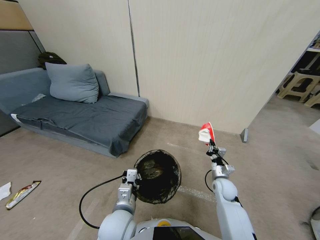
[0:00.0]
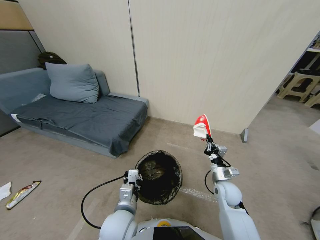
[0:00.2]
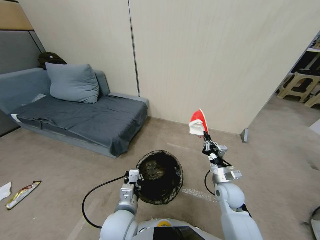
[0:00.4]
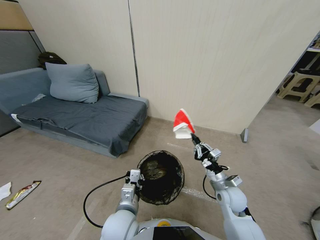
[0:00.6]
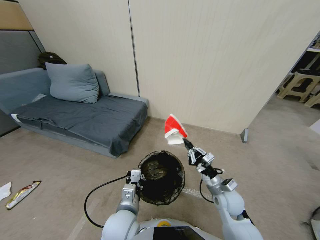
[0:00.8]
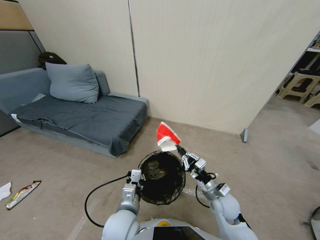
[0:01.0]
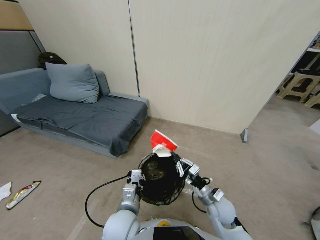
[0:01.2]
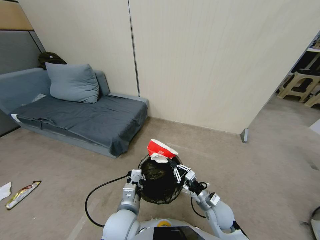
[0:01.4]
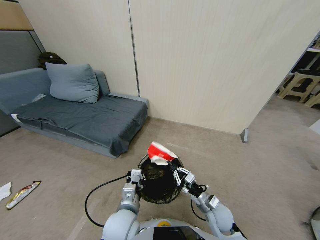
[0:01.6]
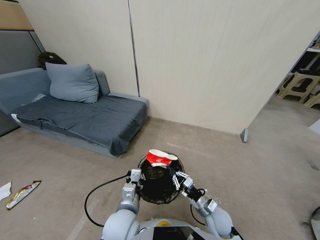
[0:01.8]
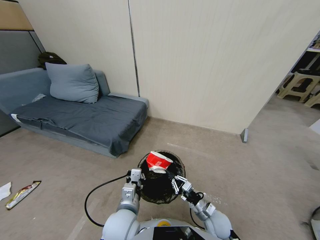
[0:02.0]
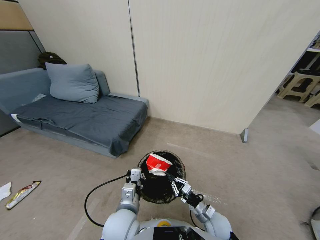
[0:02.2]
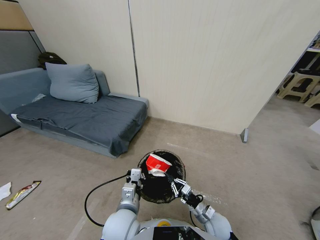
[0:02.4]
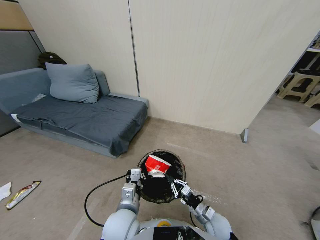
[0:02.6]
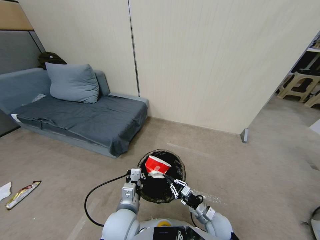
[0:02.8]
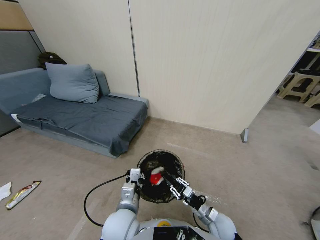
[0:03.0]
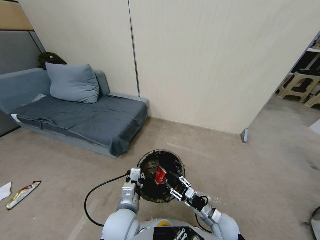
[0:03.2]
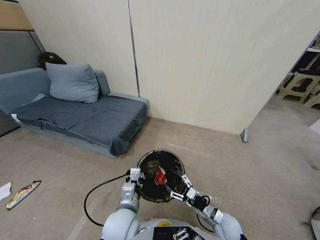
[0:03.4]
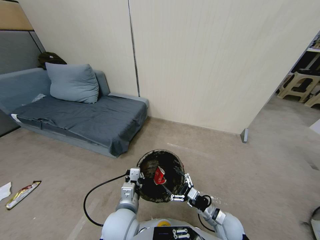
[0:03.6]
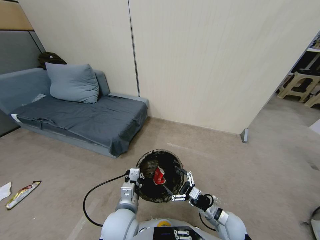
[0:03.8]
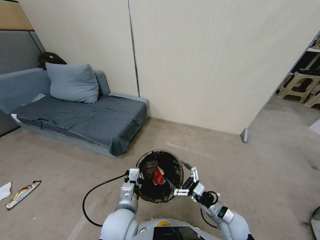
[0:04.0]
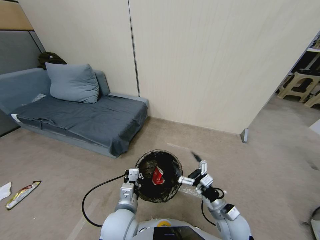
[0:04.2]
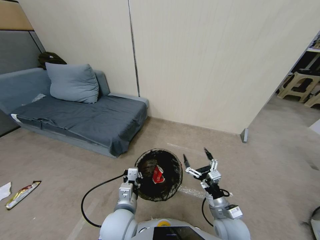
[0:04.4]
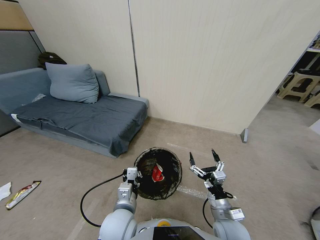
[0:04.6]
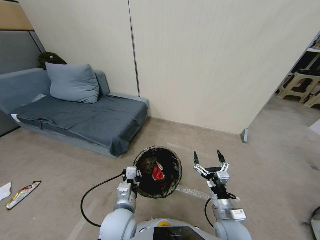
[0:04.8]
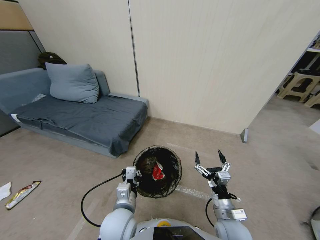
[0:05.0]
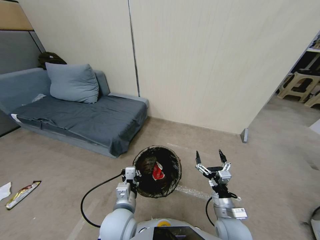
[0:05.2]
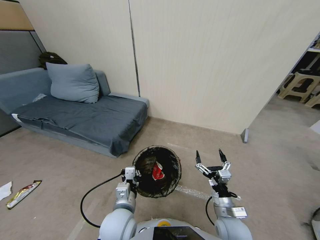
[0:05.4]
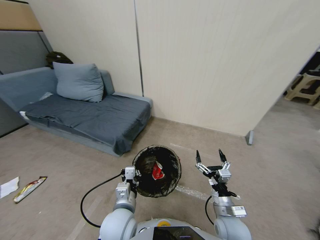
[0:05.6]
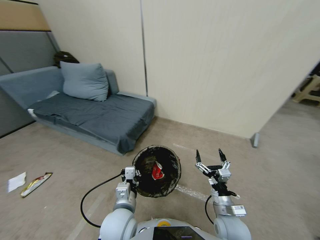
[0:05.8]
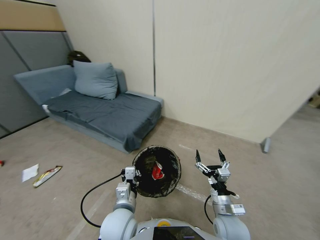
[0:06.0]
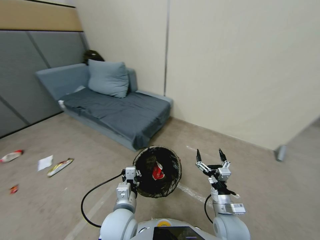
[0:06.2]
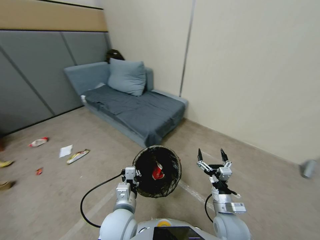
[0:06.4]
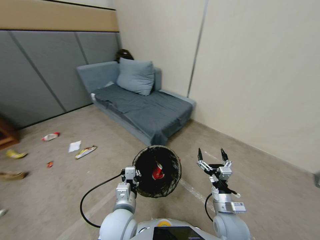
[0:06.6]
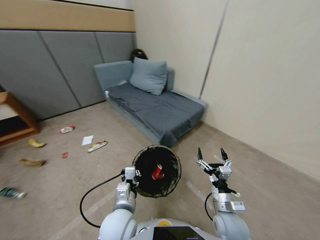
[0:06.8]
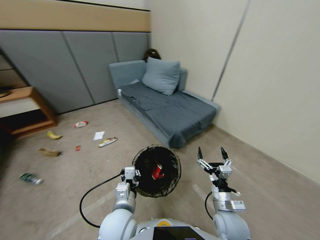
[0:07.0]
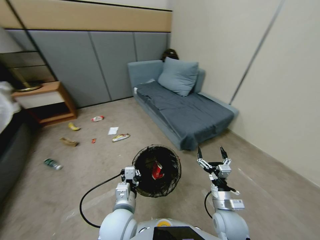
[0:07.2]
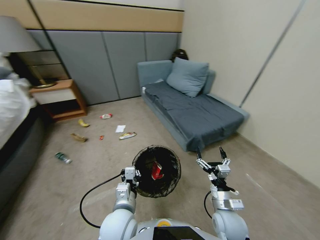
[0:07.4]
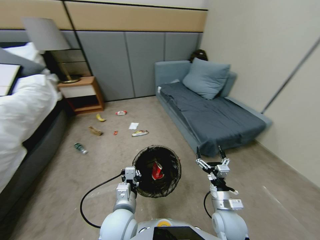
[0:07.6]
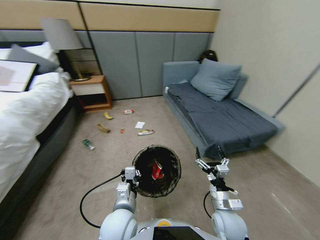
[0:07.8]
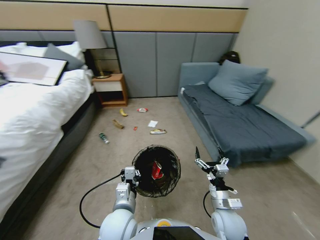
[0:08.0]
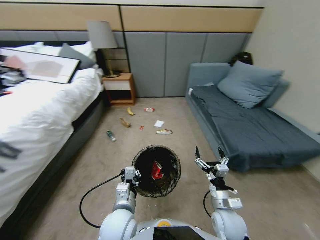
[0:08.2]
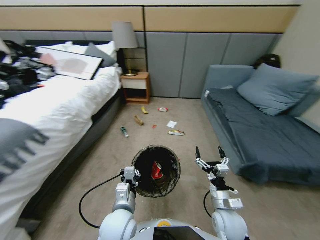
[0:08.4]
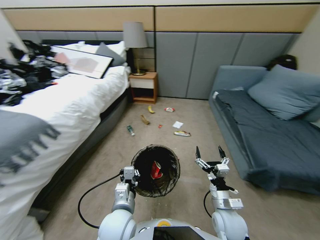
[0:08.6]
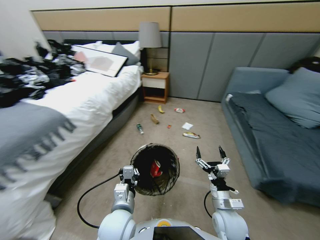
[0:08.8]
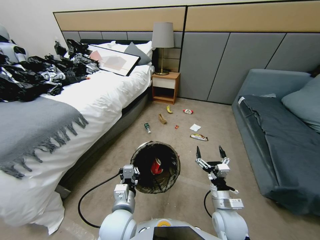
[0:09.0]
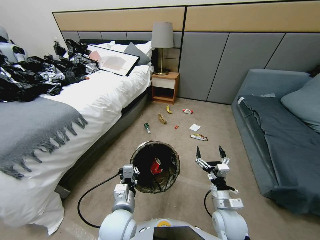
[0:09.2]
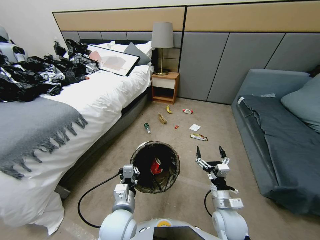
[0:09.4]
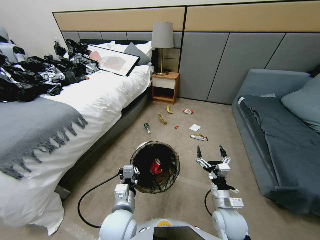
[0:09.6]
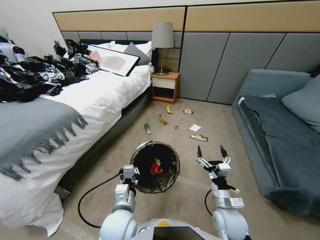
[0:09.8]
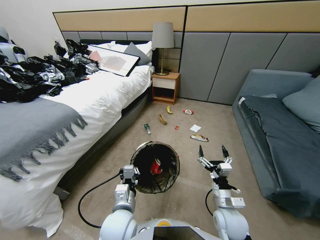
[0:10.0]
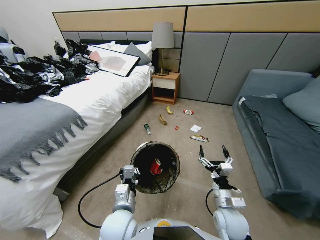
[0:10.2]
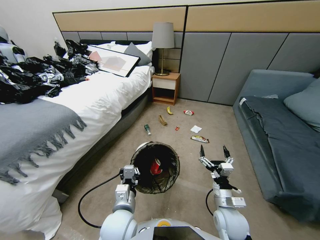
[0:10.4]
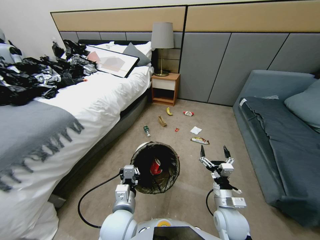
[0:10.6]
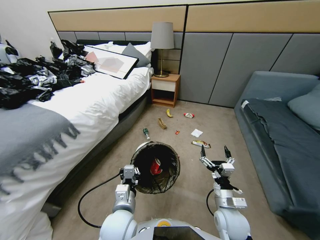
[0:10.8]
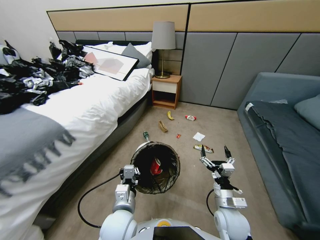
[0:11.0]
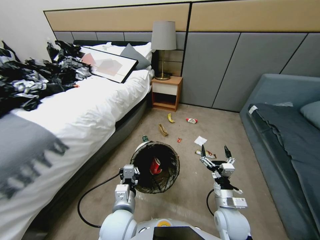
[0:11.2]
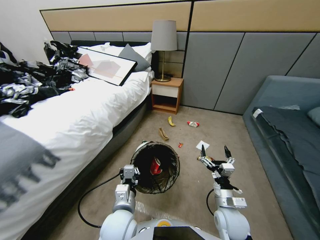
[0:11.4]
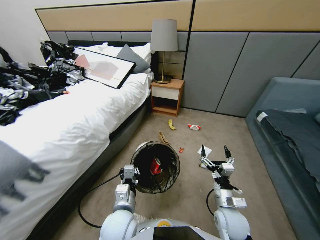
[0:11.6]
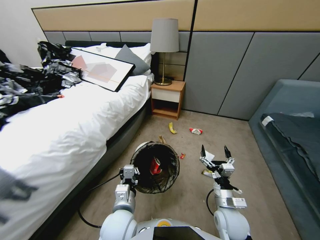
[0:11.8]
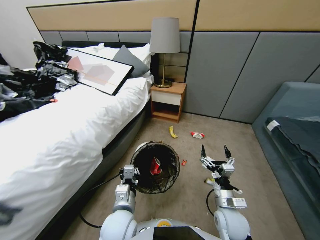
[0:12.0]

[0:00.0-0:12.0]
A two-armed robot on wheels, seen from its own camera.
Task of the whole recording: Pick up the trash bin, then pick up the garbage from the floor and place it into the trash bin.
0:00.0 to 0:01.6: The right gripper travels backward and to the left by about 10 cm.
0:01.6 to 0:03.0: The right gripper opens.
0:03.0 to 0:04.4: The right gripper goes approximately 10 cm upward, and opens.
0:09.0 to 0:10.4: Both grippers stay put.

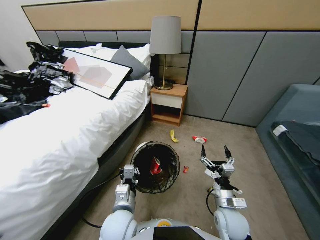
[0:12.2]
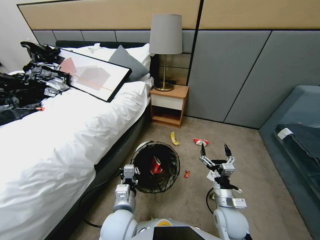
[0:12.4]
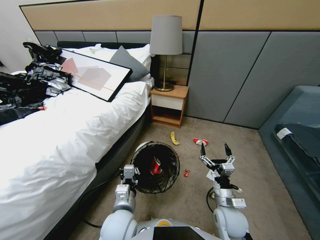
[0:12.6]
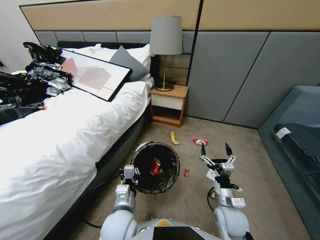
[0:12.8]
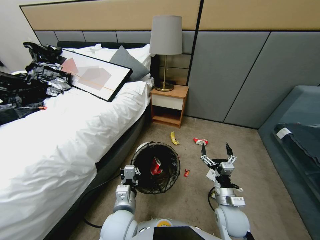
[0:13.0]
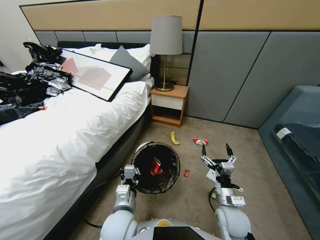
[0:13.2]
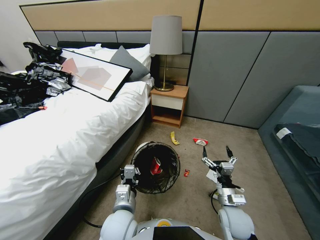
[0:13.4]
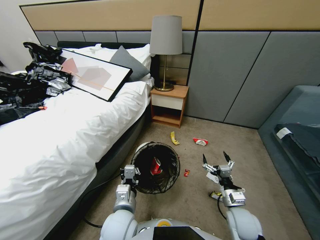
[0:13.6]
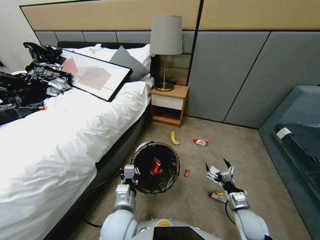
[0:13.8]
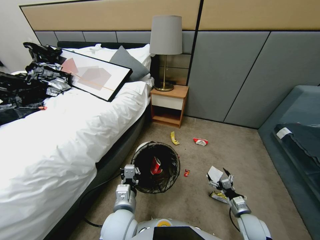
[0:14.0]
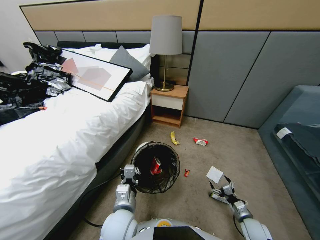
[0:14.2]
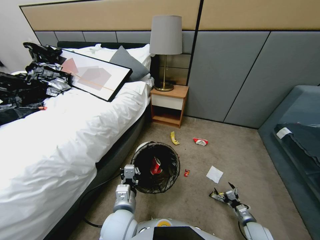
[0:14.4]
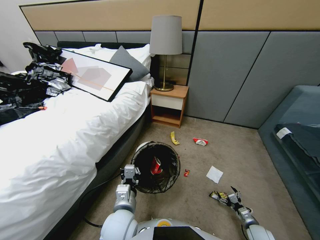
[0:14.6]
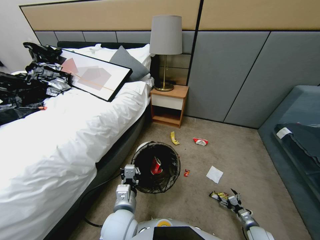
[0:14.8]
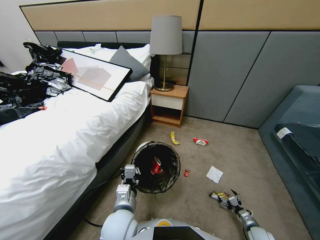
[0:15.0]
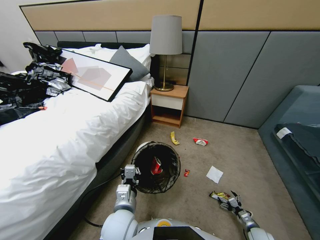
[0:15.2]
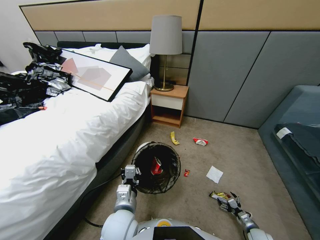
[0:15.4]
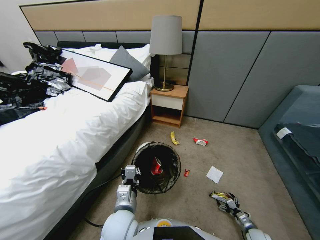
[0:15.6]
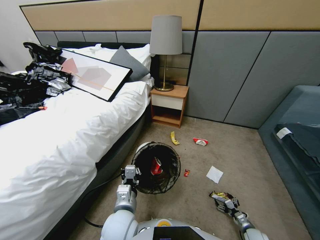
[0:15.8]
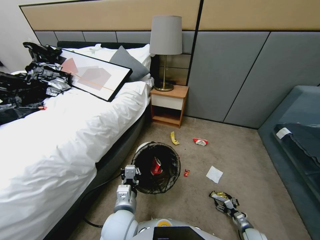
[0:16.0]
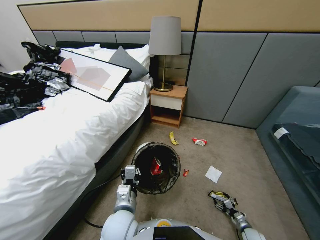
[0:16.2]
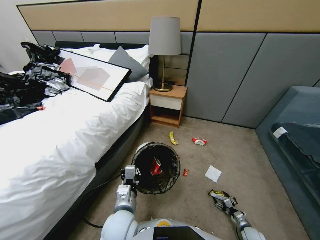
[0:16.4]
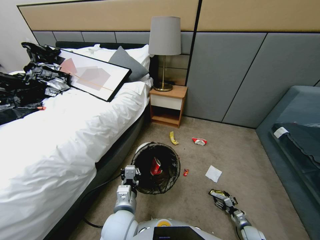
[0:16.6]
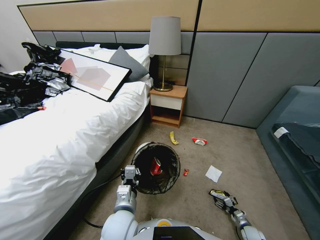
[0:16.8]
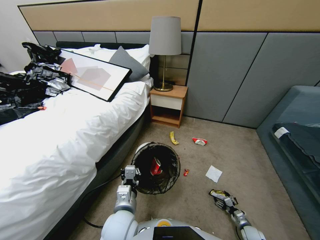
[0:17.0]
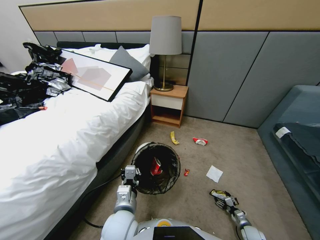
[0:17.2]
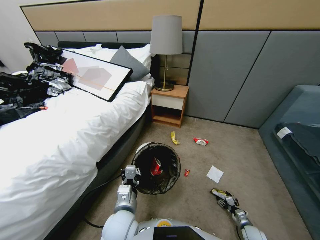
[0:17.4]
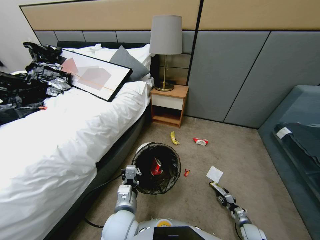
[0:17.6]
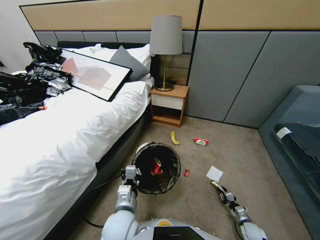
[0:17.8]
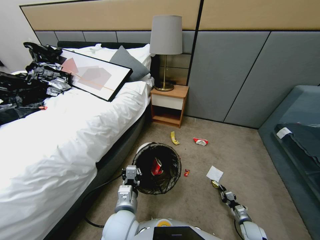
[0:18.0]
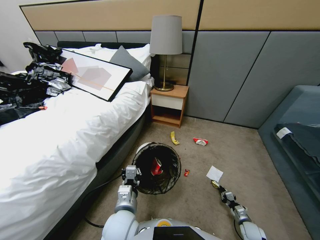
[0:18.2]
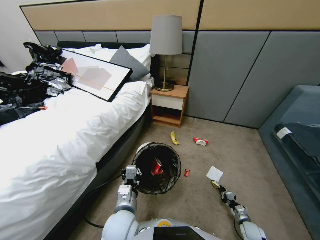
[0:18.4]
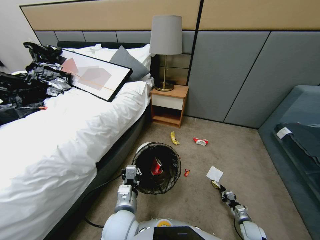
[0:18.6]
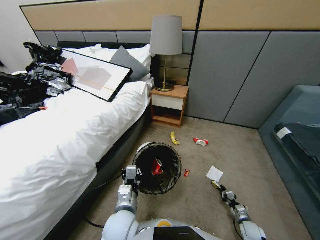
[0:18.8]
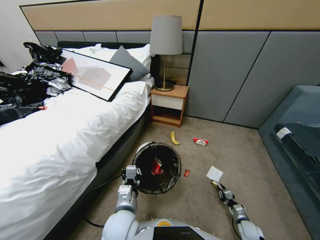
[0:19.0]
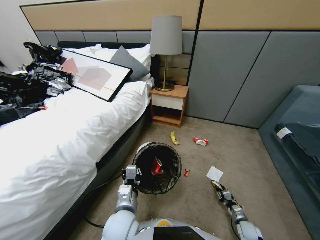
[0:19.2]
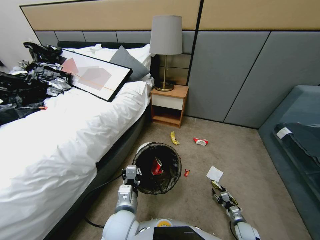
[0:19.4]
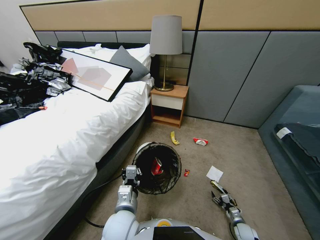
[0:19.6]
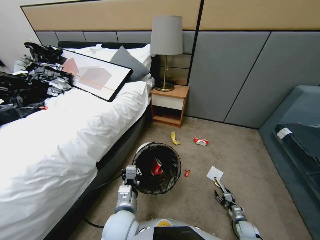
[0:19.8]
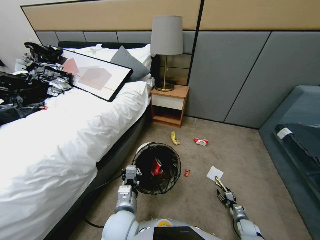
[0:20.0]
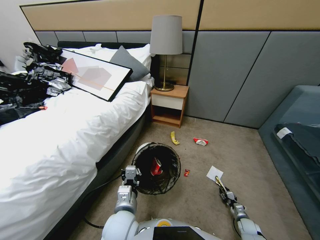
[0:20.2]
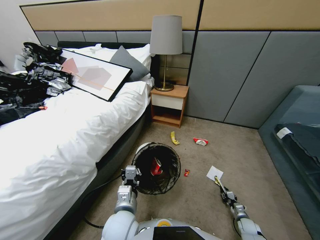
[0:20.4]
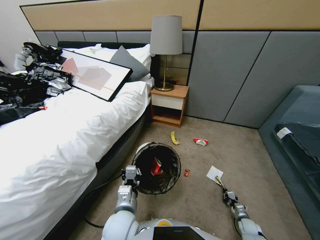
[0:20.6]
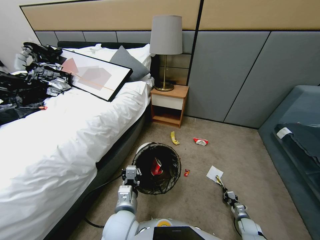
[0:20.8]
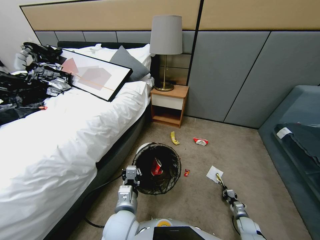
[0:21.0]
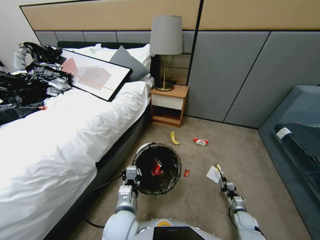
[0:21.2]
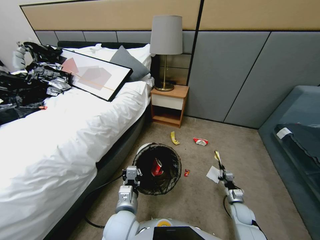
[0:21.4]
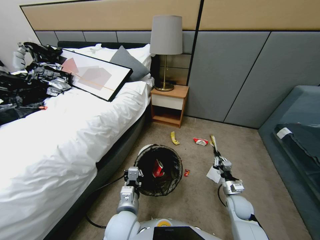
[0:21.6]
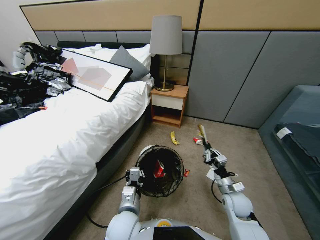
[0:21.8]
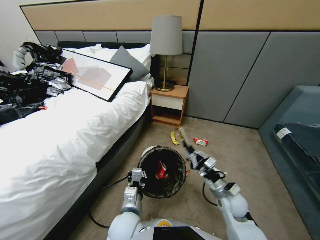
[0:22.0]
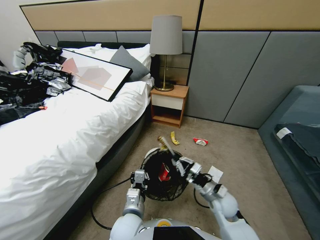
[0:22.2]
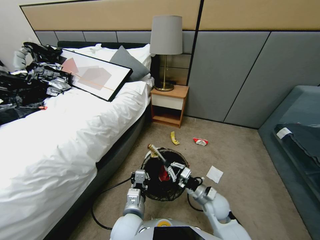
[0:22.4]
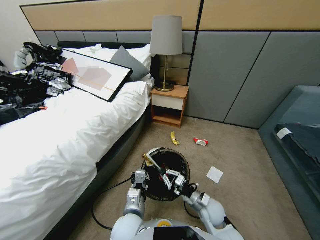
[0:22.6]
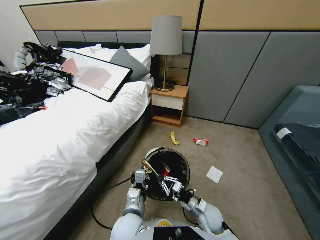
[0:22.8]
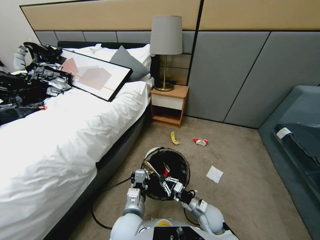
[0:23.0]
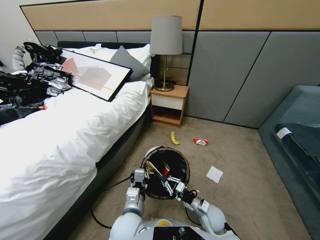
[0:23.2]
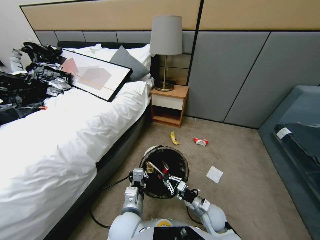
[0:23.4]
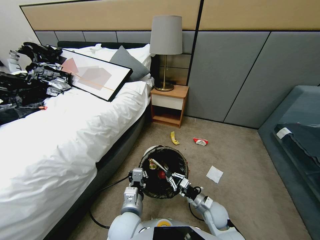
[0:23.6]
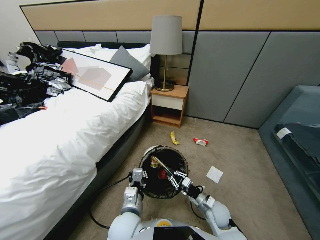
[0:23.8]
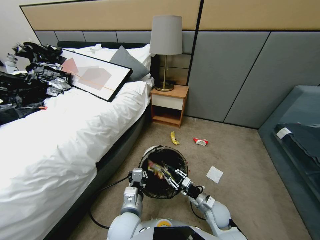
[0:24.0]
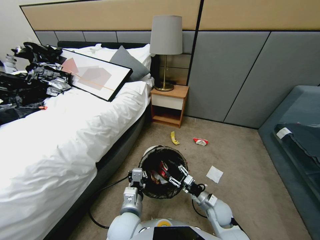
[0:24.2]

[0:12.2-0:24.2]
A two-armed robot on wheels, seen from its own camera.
Task of the whole recording: Pick up the trash bin, then pick up the garbage from the floor and place it into the trash bin.
0:12.2 to 0:13.8: The right gripper heads to the right and downward, covering about 15 cm.
0:13.8 to 0:15.2: The right gripper is displaced downward and to the right by approximately 20 cm.
0:15.2 to 0:16.6: The right gripper goes roughly 5 cm downward.
0:16.6 to 0:18.2: The right gripper changes place by roughly 5 cm, and closes up.
0:18.2 to 0:19.8: The right gripper opens its fingers.
0:19.8 to 0:21.2: The right gripper shifts some 10 cm upward, to the left and forward, and closes up.
0:21.2 to 0:22.6: The right gripper shifts approximately 25 cm to the left and upward.
0:22.6 to 0:24.2: The right gripper ends up approximately 5 cm from where it was, and opens its fingers.
